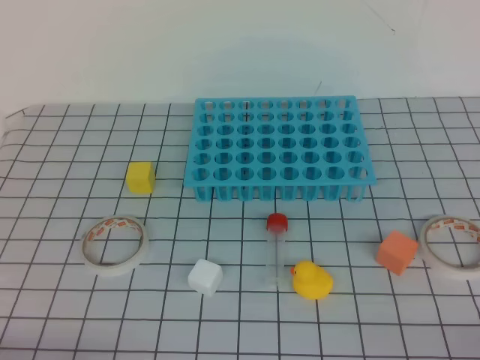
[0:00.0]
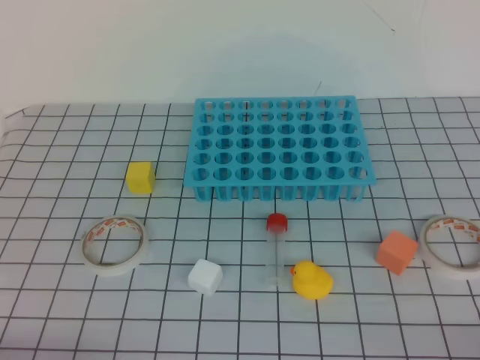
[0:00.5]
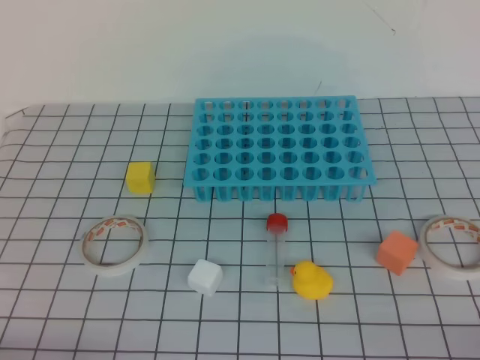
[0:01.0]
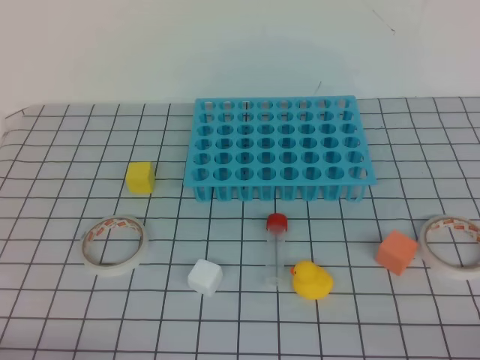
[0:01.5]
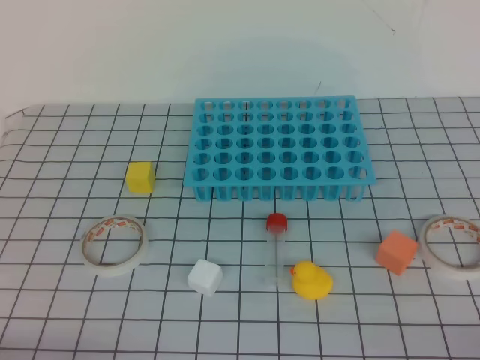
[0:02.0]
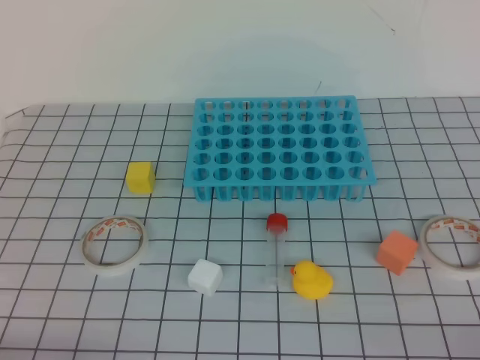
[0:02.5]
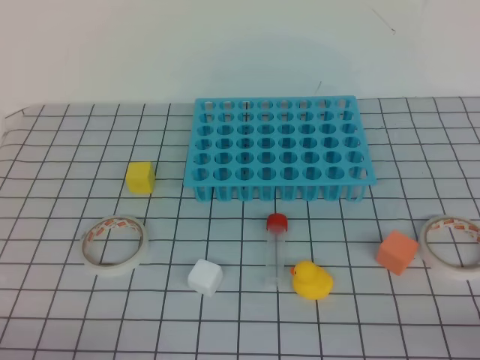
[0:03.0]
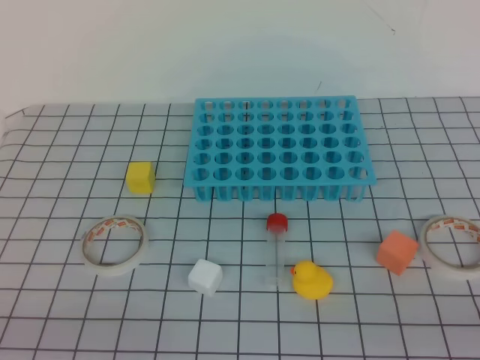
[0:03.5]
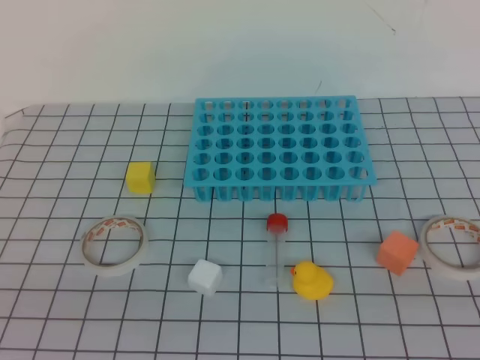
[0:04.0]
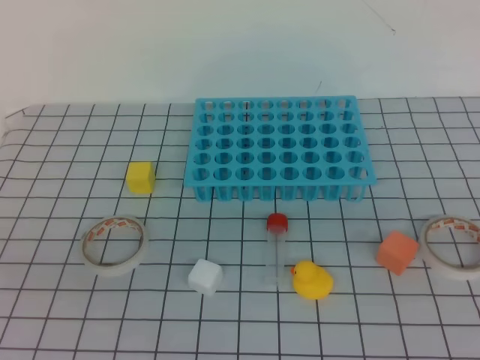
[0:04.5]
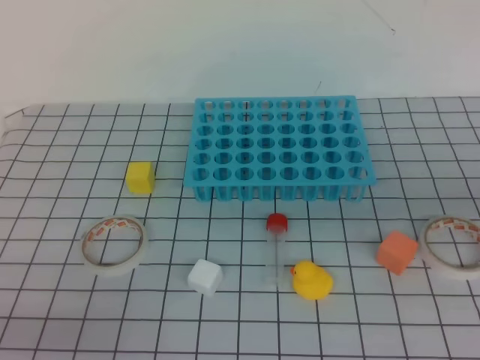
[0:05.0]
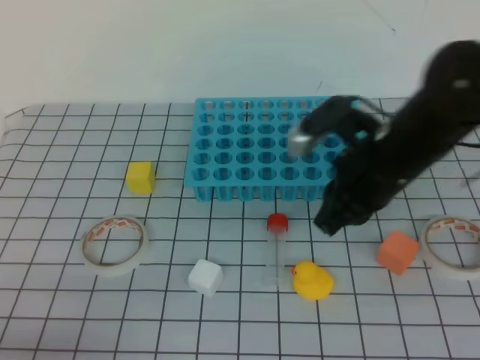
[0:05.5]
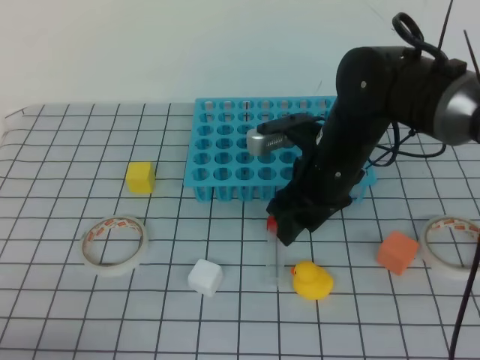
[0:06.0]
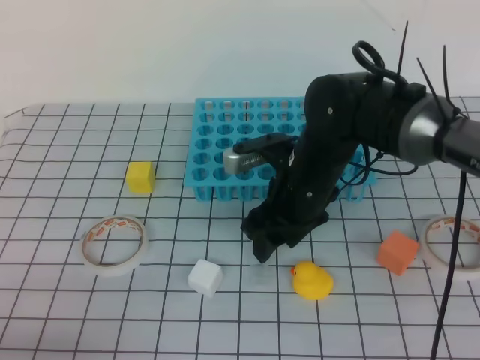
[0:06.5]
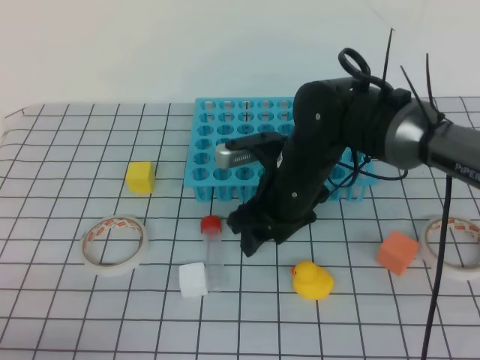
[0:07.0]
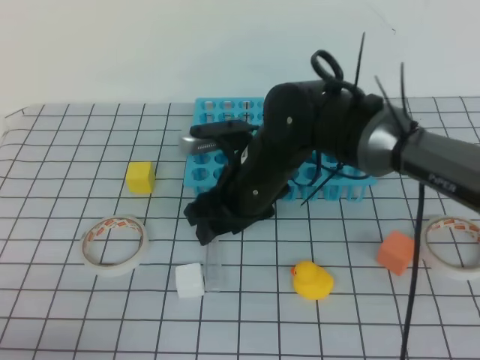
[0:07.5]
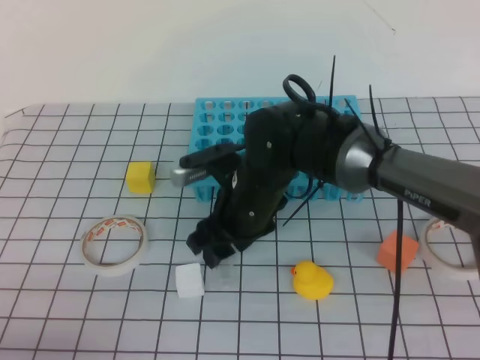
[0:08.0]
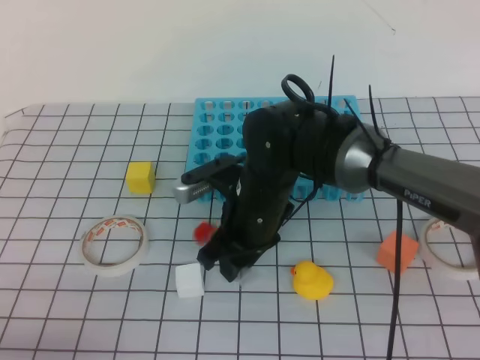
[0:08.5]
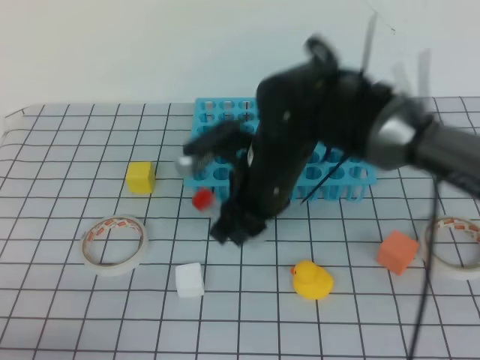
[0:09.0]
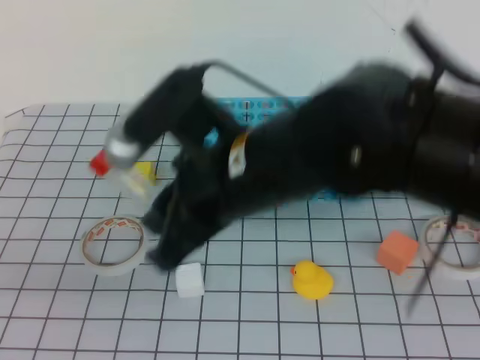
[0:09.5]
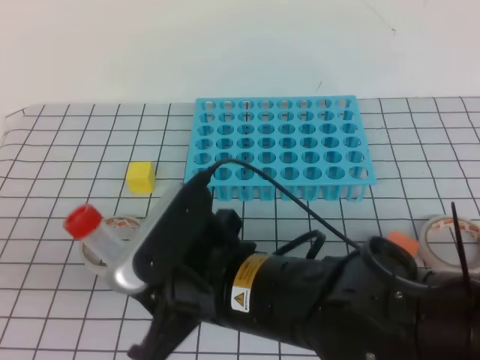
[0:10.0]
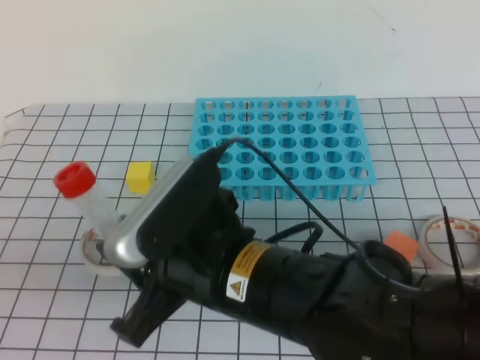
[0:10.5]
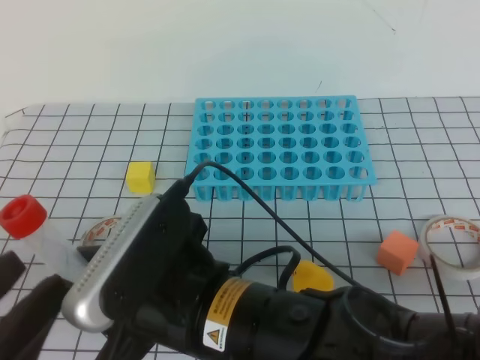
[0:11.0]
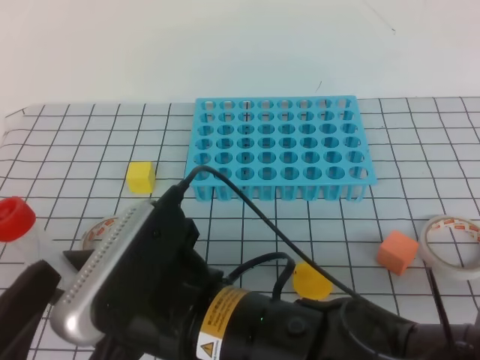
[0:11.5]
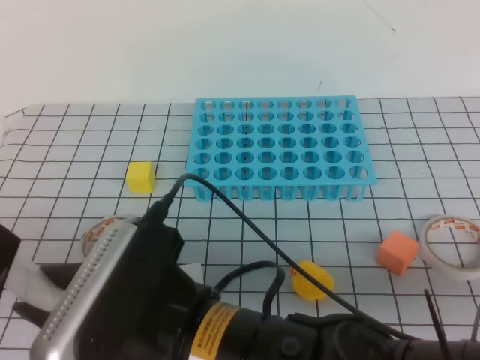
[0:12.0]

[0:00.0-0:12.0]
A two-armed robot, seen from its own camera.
0:00.0 to 0:02.0: Both grippers stay about where they are.
0:04.0 to 0:06.0: The left gripper shifts some 5 cm downward, while the right gripper travels forward and to the left by approximately 40 cm, and opens up.
0:06.0 to 0:08.0: The right gripper goes approximately 10 cm to the left.
0:08.0 to 0:10.0: The left gripper moves upward, some 5 cm, while the right gripper heads backward and upward, covering roughly 20 cm, and closes.
0:10.0 to 0:12.0: The right gripper moves backward, about 5 cm. The left gripper opens its fingers.

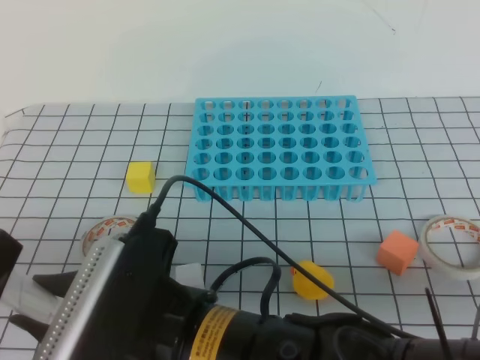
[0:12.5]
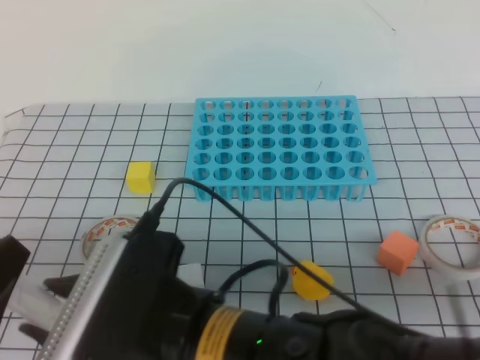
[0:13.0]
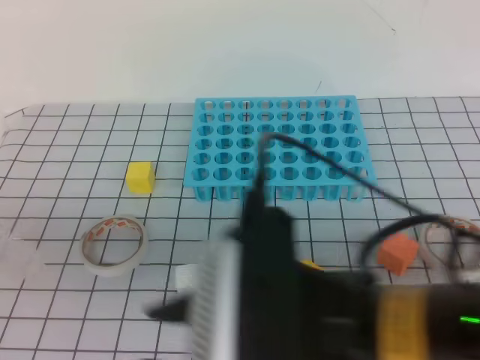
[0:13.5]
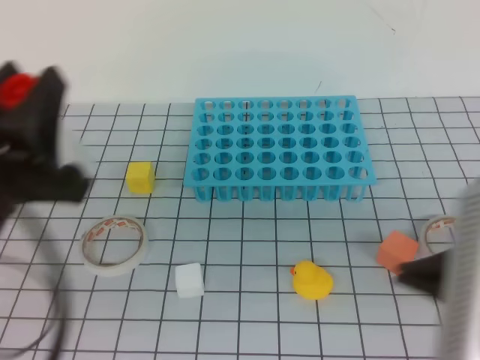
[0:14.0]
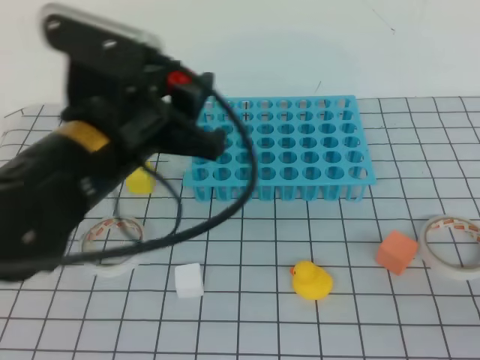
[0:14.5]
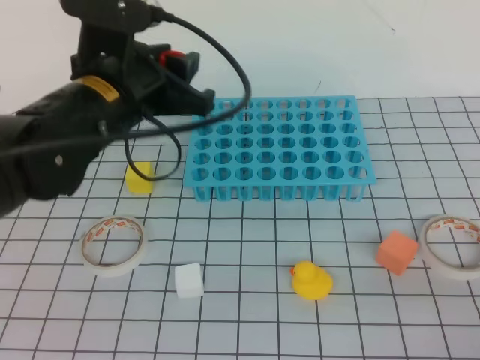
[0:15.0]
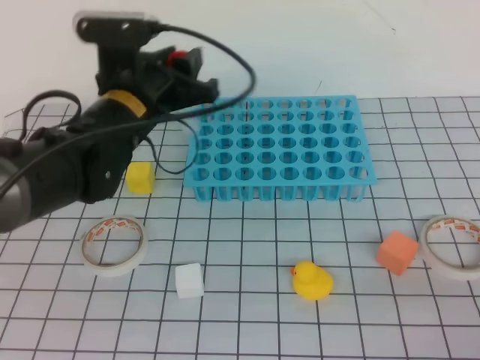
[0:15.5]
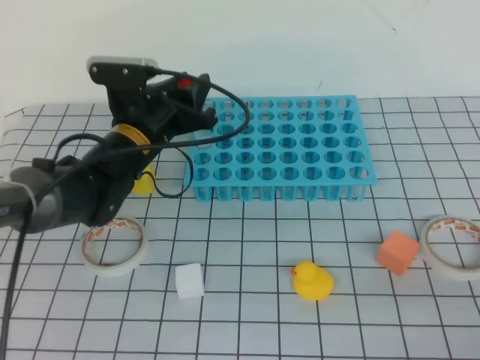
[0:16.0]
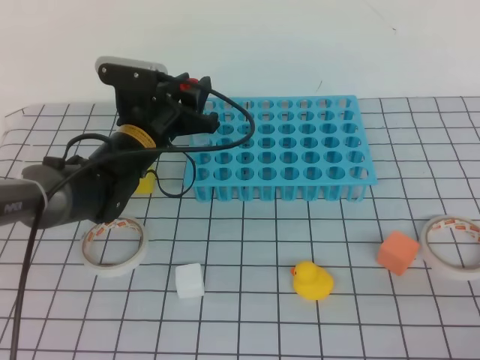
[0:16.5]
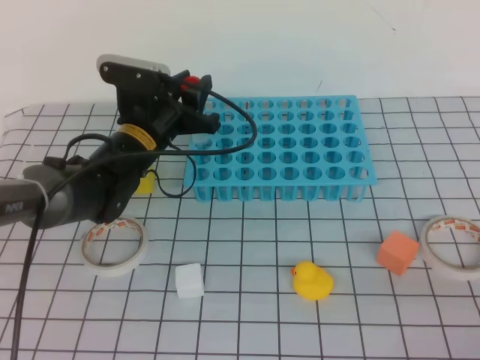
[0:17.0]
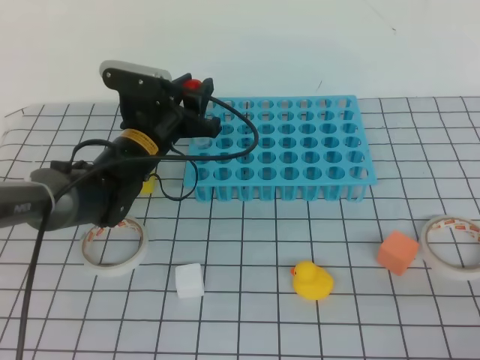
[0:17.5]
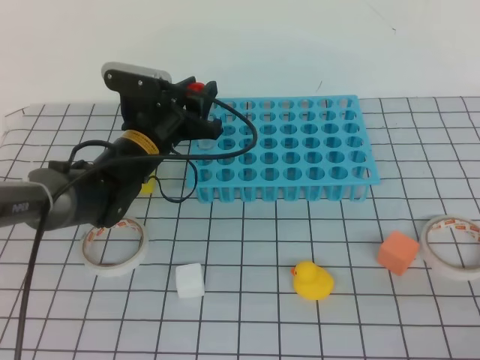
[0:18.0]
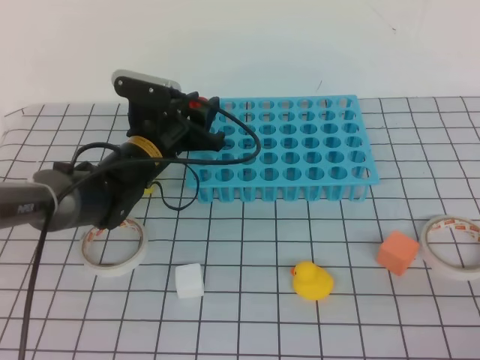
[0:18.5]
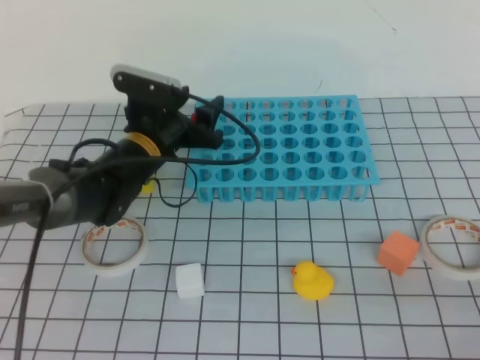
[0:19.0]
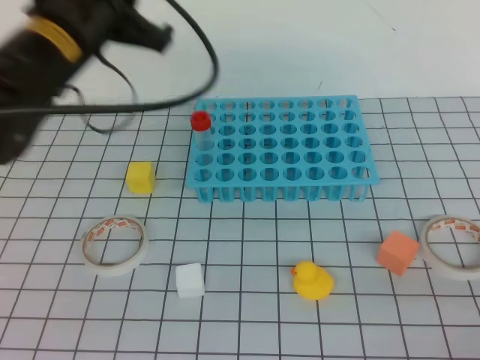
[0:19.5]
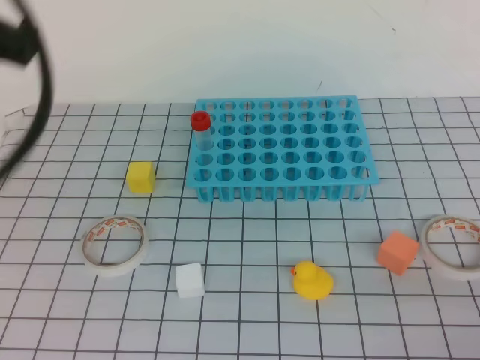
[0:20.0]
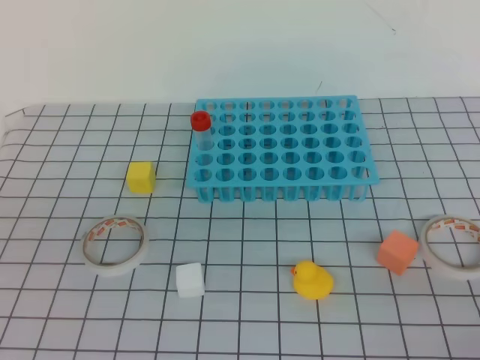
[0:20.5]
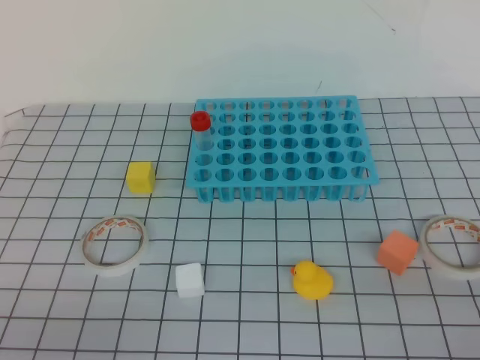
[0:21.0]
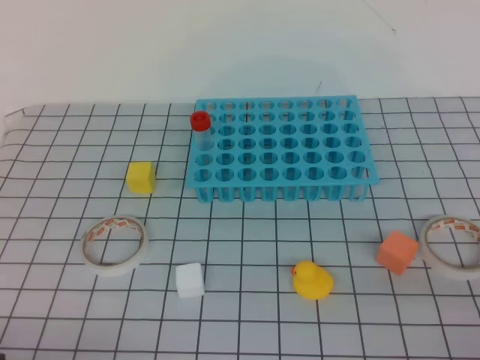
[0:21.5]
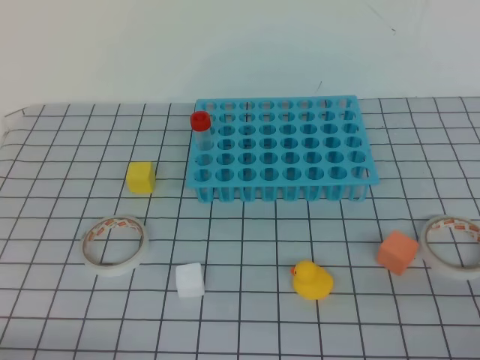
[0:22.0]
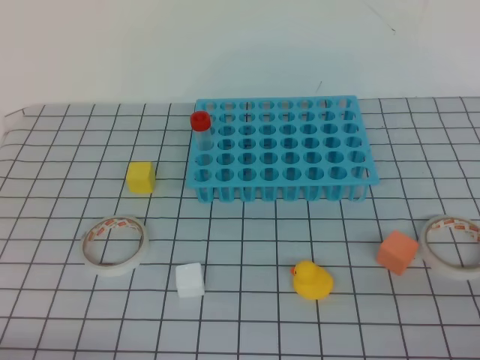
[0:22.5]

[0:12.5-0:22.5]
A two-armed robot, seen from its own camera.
0:12.5 to 0:14.5: The left gripper goes roughly 20 cm forward and to the right. The right gripper goes approximately 30 cm to the right, and closes.
0:14.5 to 0:16.5: The right gripper changes place by roughly 5 cm. Meanwhile the left gripper travels forward and downward by about 20 cm.
0:16.5 to 0:18.5: The grippers stay close to where they were, moving slightly.
0:18.5 to 0:20.5: The left gripper travels backward and upward by approximately 40 cm, and closes its fingers.
0:20.5 to 0:22.5: The left gripper heads downward, covering about 20 cm.
